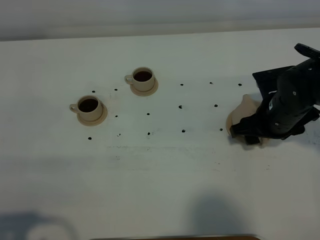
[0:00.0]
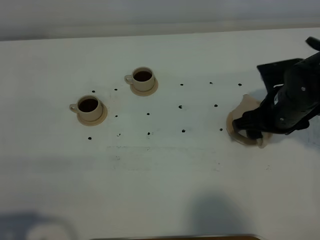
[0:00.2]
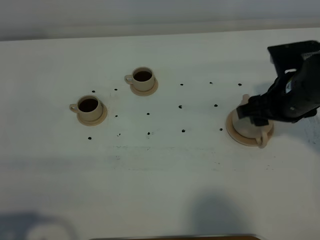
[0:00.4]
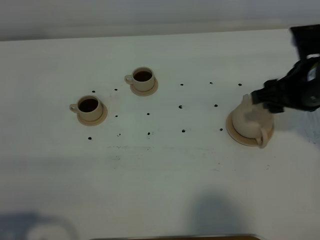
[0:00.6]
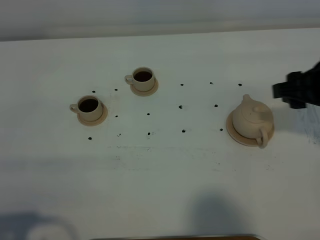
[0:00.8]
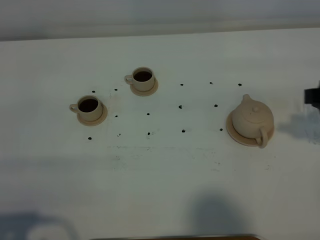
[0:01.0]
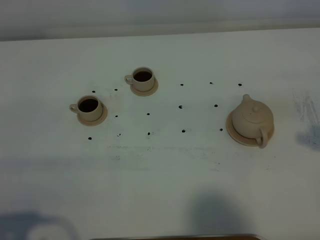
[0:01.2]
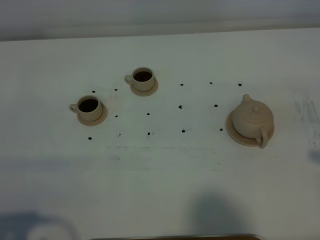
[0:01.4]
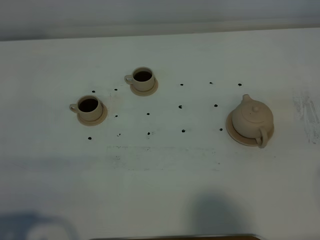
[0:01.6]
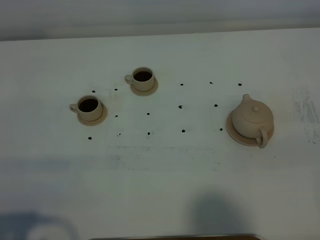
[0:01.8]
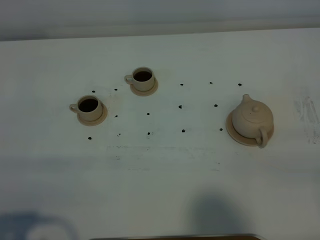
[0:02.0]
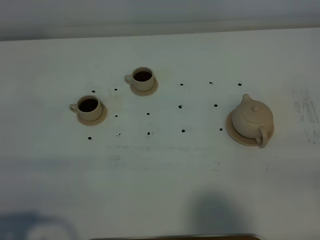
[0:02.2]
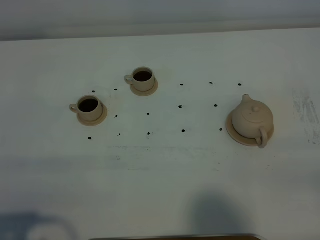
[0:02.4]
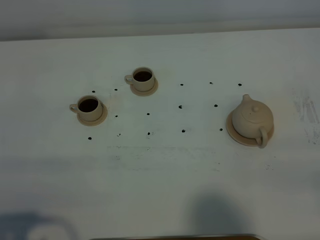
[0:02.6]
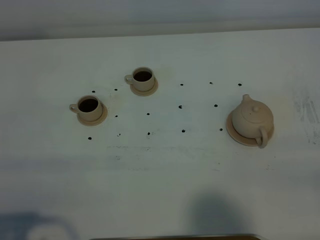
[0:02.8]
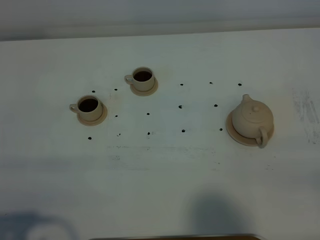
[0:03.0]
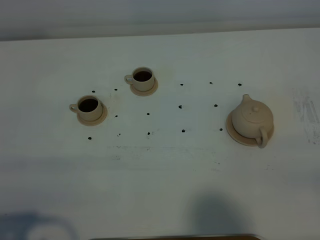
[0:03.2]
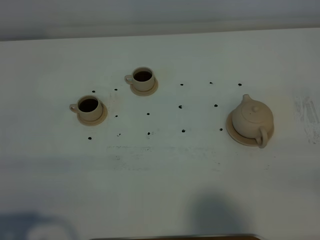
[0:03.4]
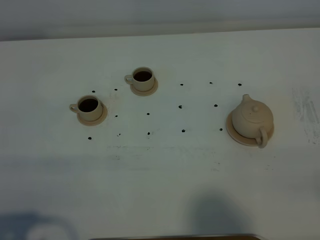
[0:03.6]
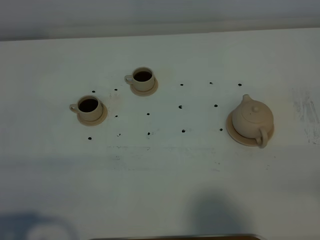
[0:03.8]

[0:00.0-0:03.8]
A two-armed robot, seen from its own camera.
Task of the whole recording: grasp the brown teapot and pour the tea into the two brown teacups one by one, put the brown teapot back in its original place.
0:00.0 to 0:01.2: The right gripper heads upward, backward and to the right, covering roughly 25 cm.

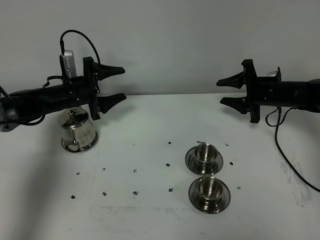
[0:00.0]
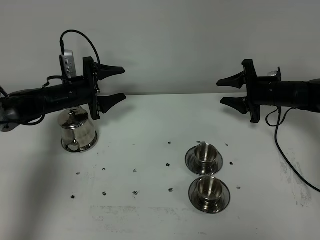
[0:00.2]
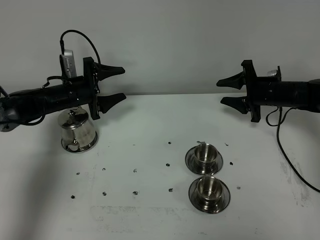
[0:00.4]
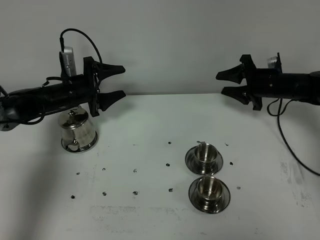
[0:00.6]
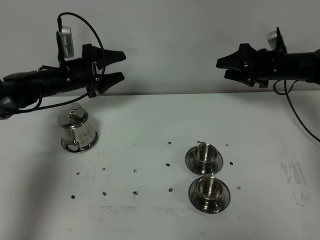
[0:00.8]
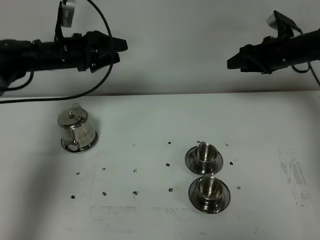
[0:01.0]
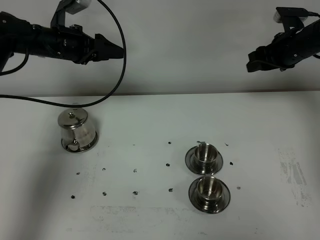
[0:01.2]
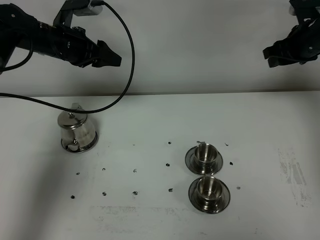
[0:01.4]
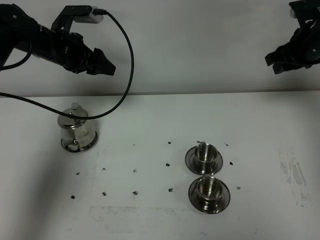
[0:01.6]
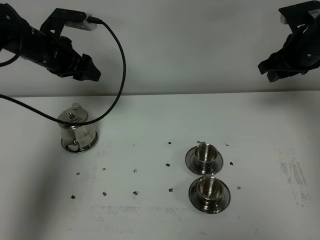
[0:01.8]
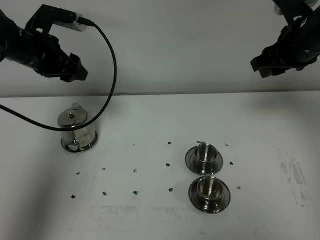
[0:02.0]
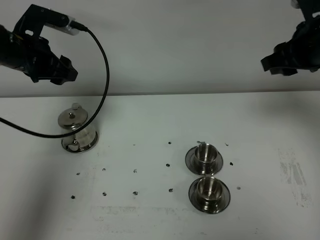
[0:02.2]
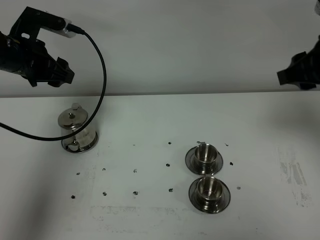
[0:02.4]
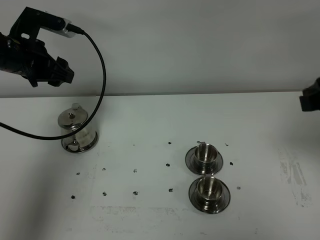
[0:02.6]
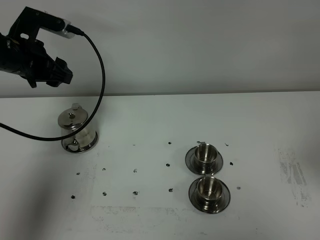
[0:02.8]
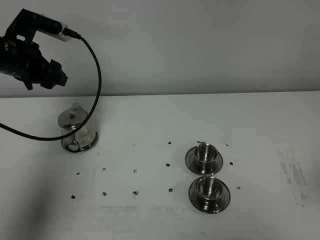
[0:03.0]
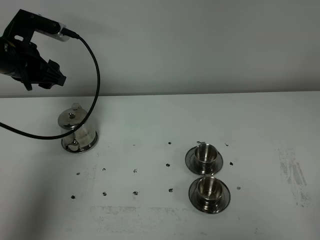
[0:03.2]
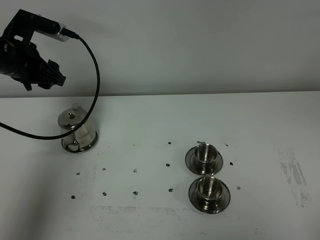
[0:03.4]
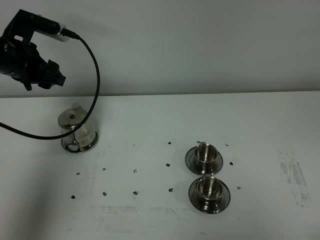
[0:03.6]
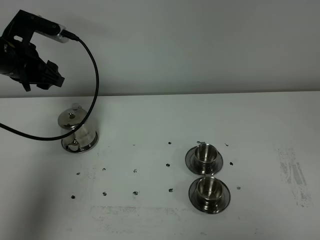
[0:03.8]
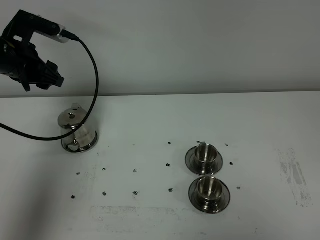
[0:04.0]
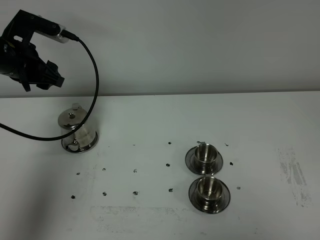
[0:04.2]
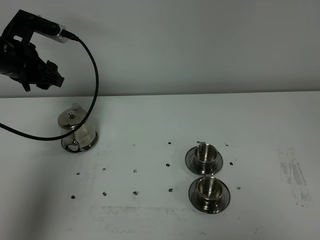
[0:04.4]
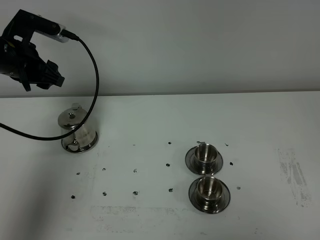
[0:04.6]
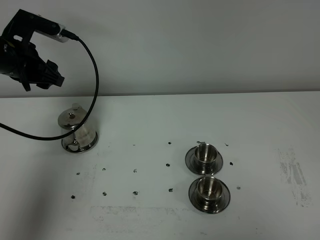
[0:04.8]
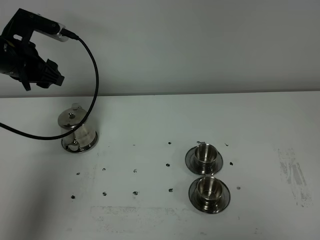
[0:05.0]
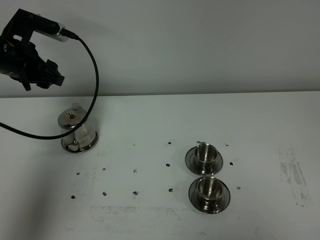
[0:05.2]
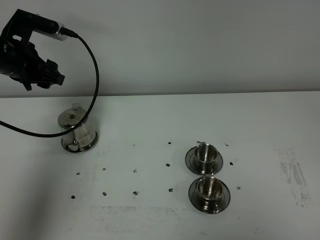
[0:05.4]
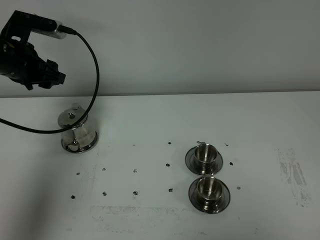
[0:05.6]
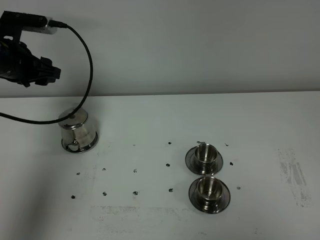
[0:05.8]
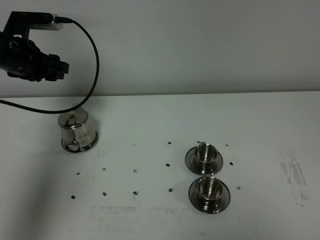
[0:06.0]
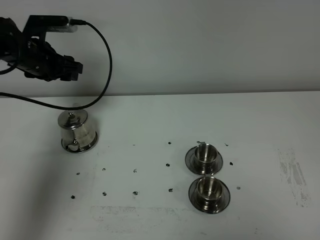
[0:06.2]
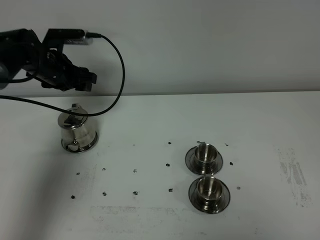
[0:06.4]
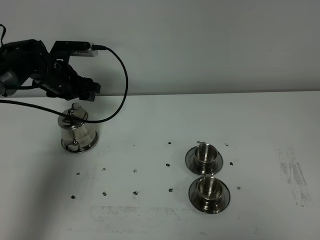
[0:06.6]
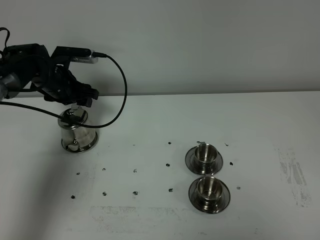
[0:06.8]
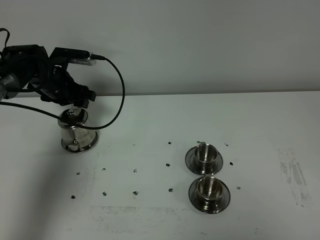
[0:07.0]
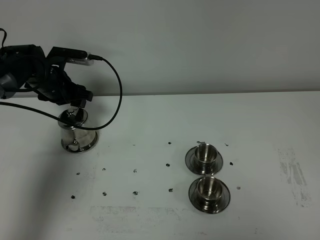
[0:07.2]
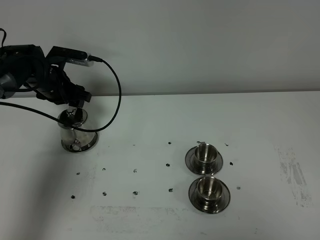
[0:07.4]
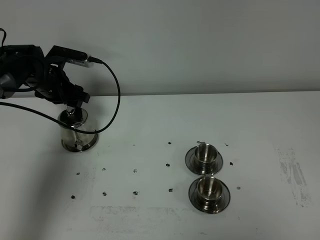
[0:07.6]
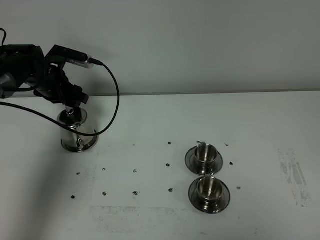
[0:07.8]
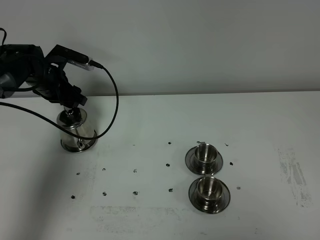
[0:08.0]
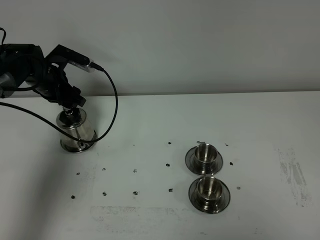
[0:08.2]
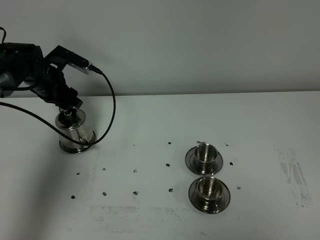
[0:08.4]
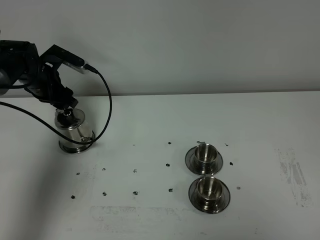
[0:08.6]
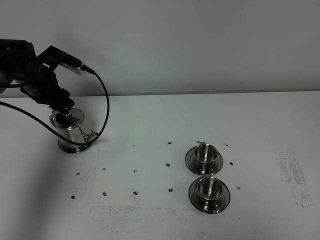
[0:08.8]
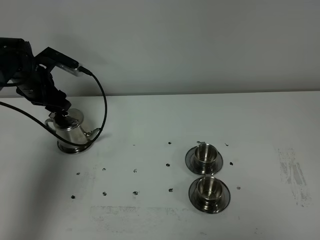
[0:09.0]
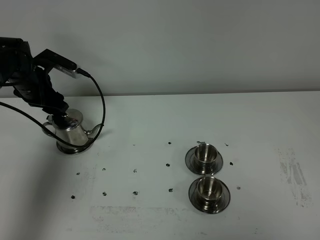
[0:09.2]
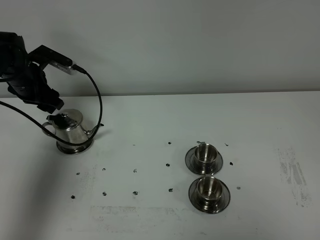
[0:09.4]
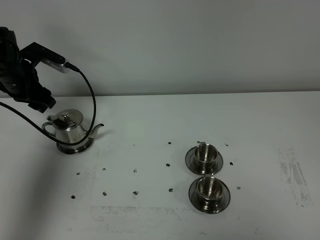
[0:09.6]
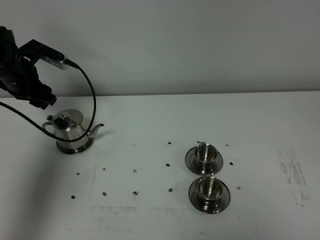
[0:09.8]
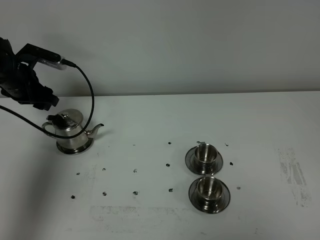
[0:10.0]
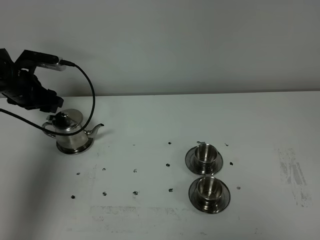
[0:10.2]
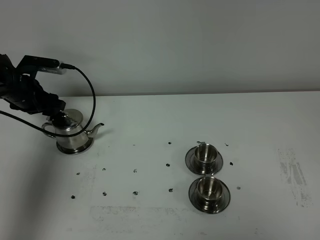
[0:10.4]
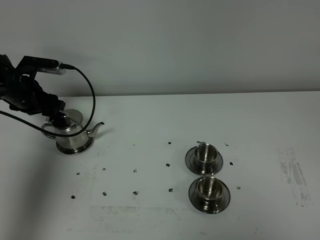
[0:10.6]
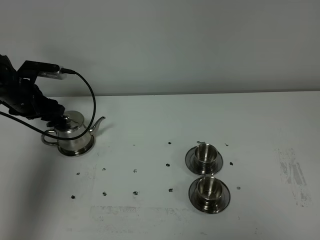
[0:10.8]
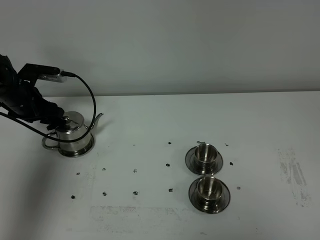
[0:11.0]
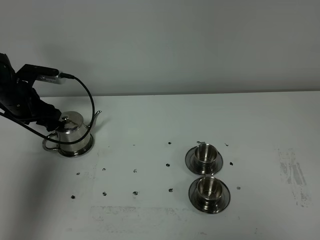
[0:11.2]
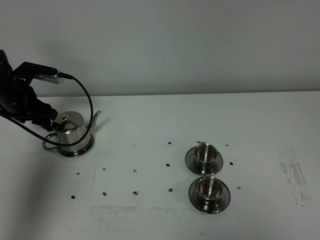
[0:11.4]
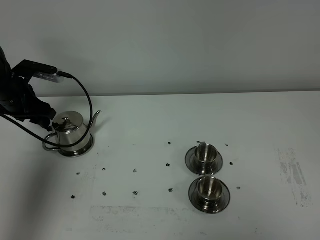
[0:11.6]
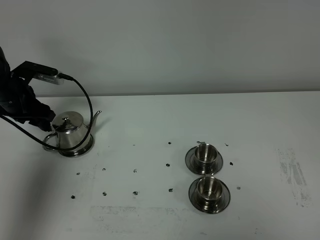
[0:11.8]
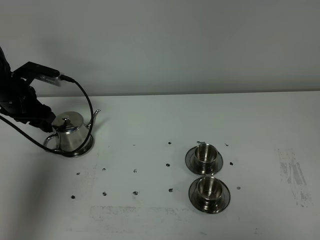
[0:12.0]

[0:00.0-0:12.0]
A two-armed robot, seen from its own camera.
Task of the whole recording: grasp the stainless steel teapot and pour the tea into the two stainless steel teacups one by one, put the stainless steel teapot back in its original place.
0:00.0 to 0:01.6: Both grippers travel together upward, about 15 cm.
0:01.6 to 0:03.0: The right gripper goes approximately 40 cm backward. The left gripper travels backward by about 5 cm.
0:04.4 to 0:06.0: The grippers make only small movements.
0:06.0 to 0:07.6: The left gripper shifts approximately 10 cm downward.
0:07.6 to 0:09.0: There are only small adjustments of the grippers.
0:10.4 to 0:12.0: The grippers stay close to where they were, moving slightly.

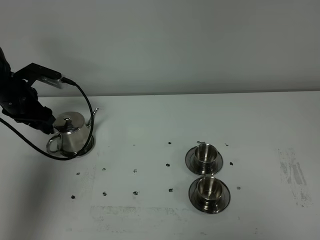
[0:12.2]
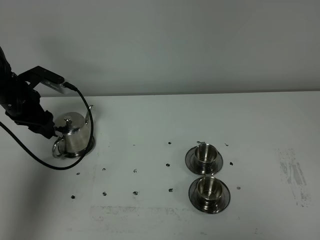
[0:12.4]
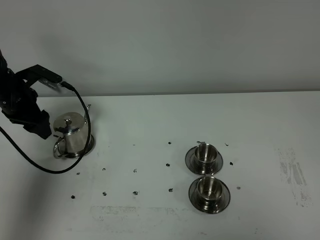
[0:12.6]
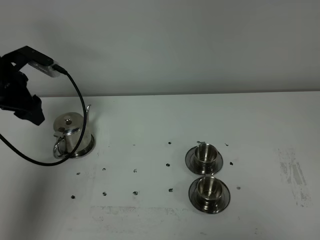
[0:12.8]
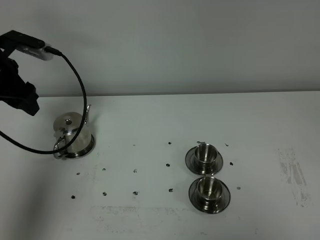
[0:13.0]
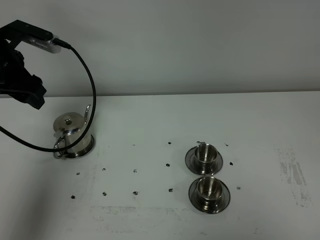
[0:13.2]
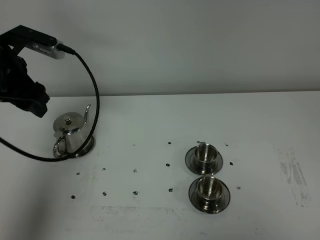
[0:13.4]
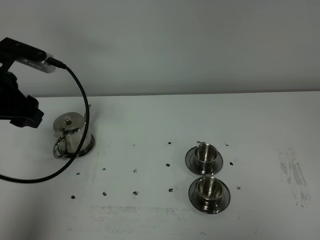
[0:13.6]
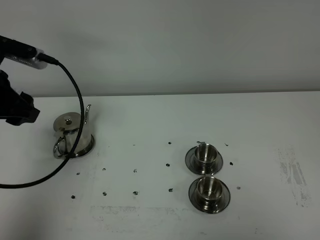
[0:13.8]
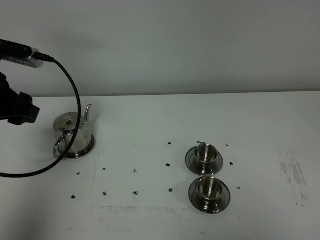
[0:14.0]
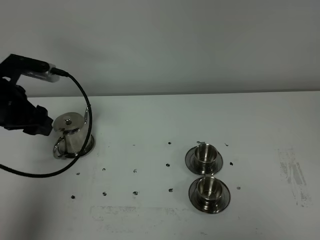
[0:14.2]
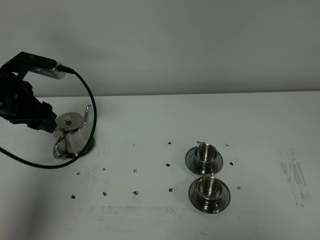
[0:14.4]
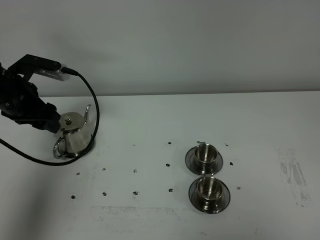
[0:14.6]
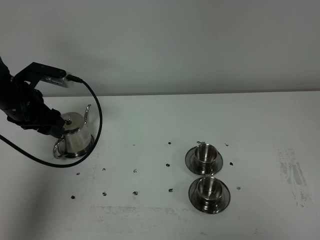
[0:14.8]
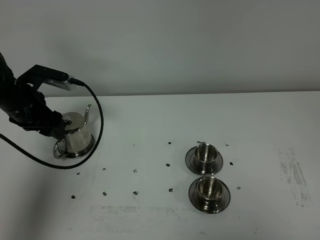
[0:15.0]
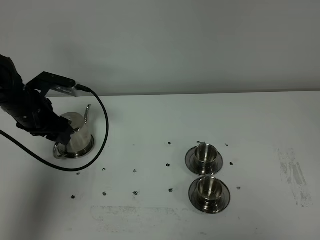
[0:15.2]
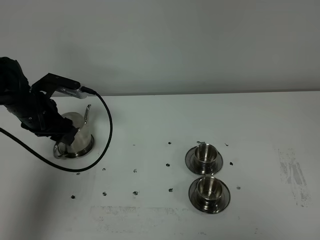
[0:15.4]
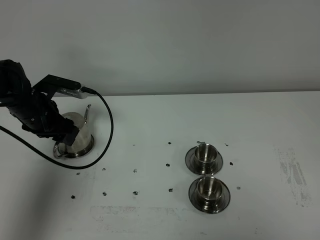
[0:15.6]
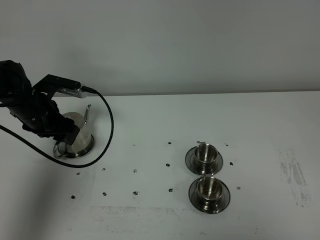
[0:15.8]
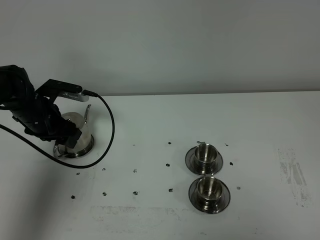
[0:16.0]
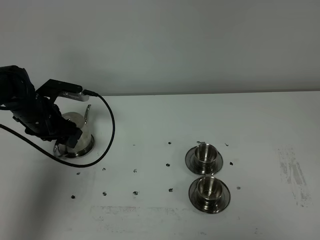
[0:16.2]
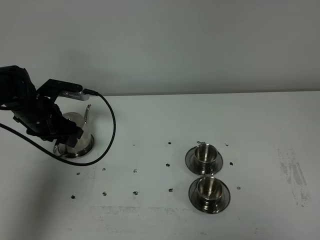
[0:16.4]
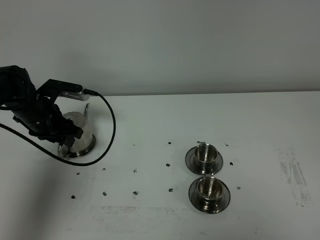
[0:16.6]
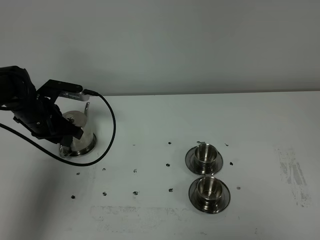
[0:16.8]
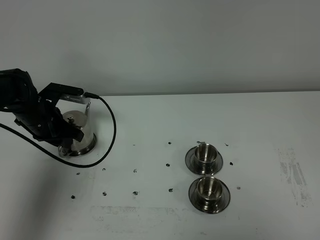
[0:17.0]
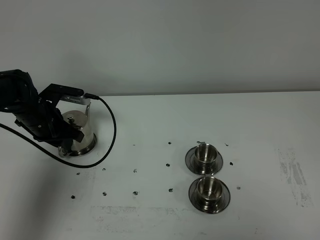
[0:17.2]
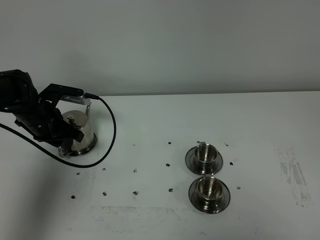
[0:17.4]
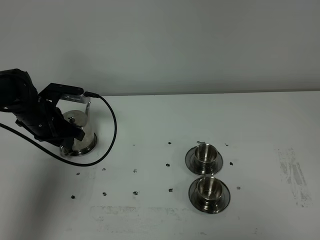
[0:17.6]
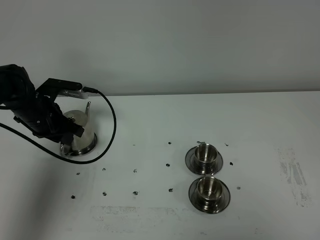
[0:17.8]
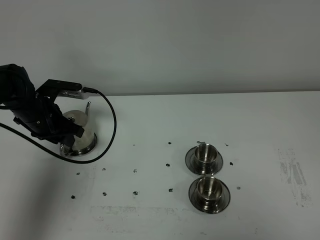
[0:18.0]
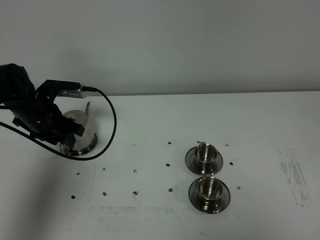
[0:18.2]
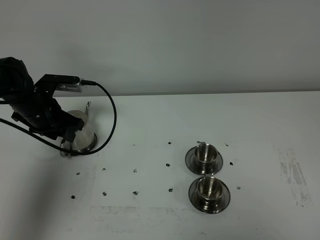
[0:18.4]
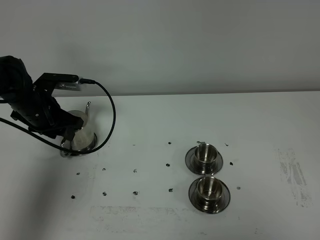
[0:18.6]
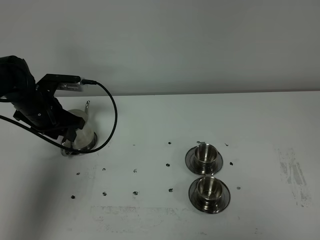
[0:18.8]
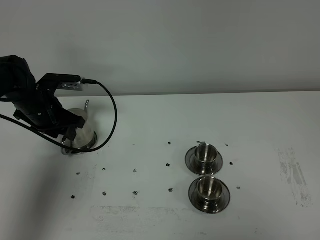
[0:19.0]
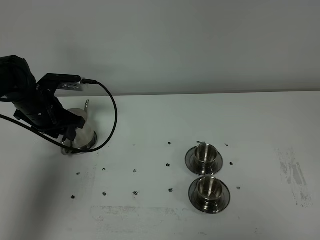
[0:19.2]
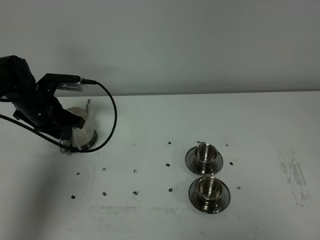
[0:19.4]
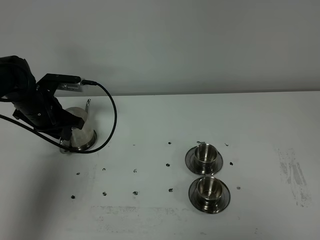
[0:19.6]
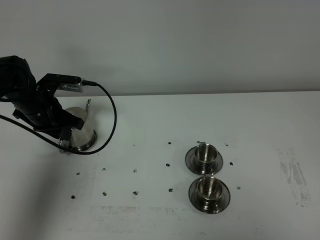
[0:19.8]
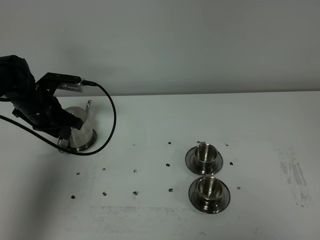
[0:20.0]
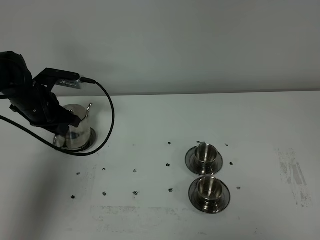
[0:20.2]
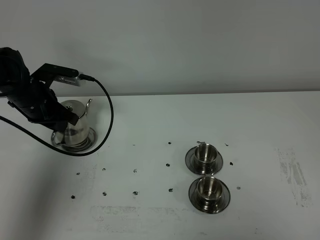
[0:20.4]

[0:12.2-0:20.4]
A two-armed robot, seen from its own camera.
Task of the whole recording: grasp the stainless steel teapot and pour the tea into the two stainless steel teacups one by one, put the stainless steel teapot back in its original place.
Step, 0:12.2 to 0:20.4: Pick up the teapot with the left gripper.
0:12.2 to 0:13.8: The left gripper heads backward and upward, covering some 20 cm.
0:13.8 to 0:15.4: The left gripper heads downward and forward, covering some 15 cm.
0:15.4 to 0:17.2: The left gripper closes.
0:17.2 to 0:18.8: The left gripper opens.
0:18.8 to 0:20.4: The left gripper closes up.
